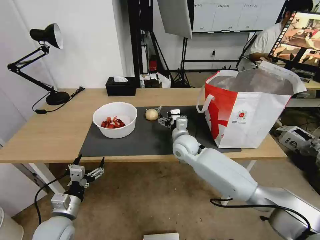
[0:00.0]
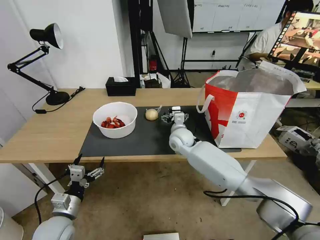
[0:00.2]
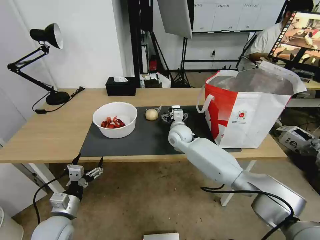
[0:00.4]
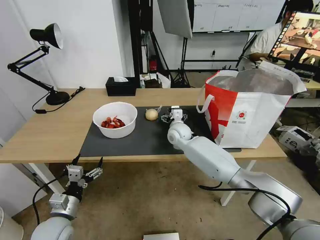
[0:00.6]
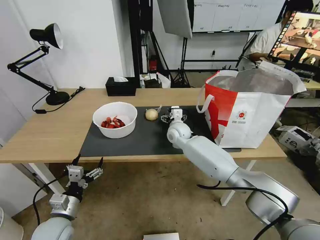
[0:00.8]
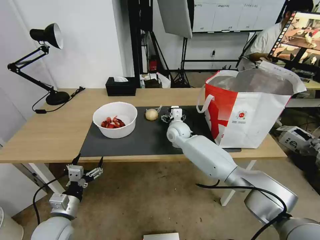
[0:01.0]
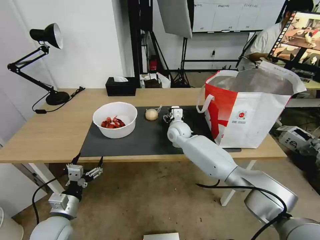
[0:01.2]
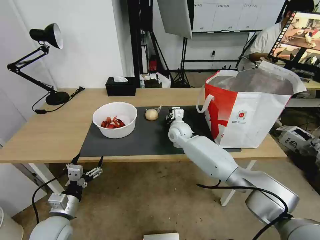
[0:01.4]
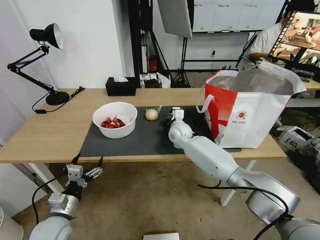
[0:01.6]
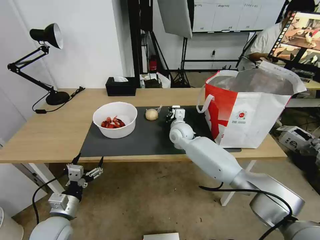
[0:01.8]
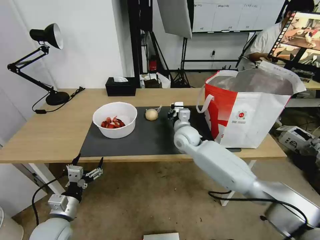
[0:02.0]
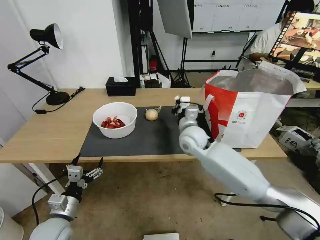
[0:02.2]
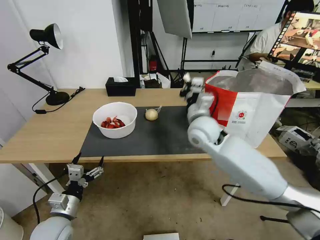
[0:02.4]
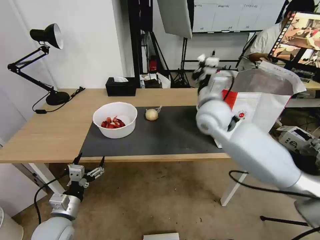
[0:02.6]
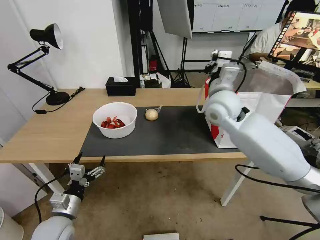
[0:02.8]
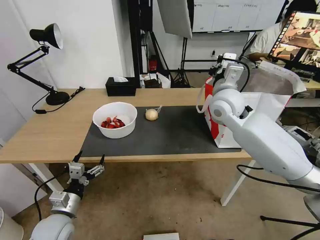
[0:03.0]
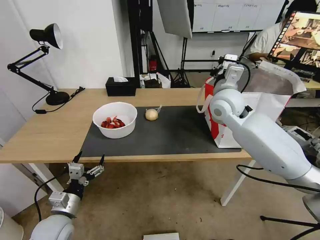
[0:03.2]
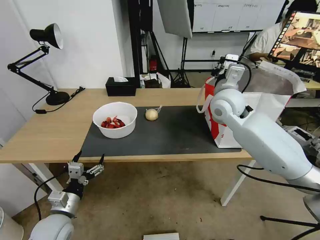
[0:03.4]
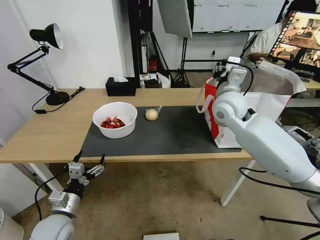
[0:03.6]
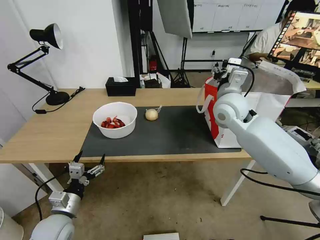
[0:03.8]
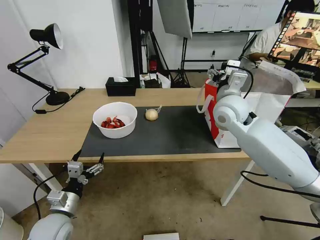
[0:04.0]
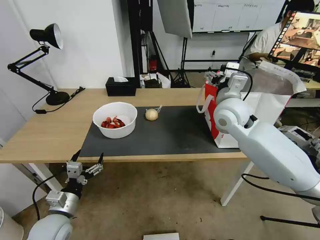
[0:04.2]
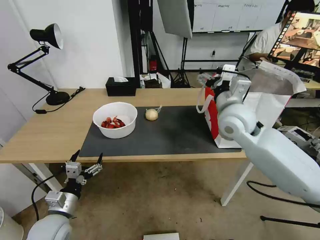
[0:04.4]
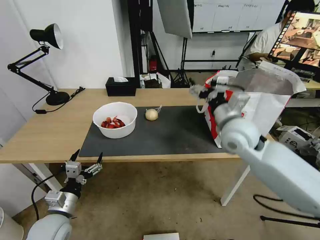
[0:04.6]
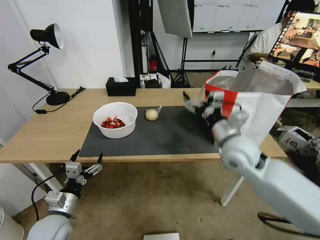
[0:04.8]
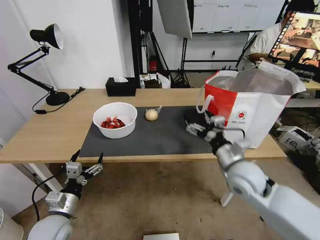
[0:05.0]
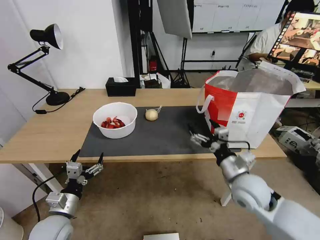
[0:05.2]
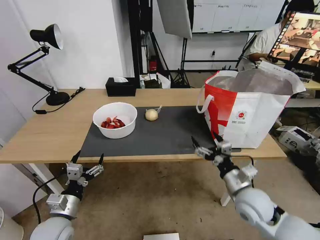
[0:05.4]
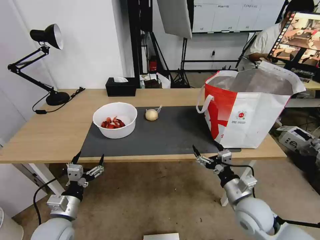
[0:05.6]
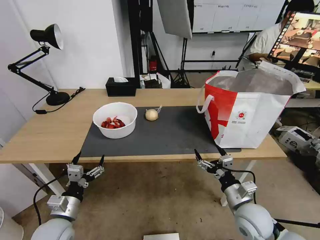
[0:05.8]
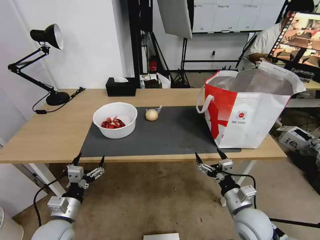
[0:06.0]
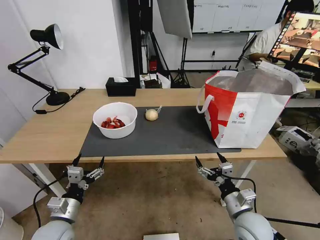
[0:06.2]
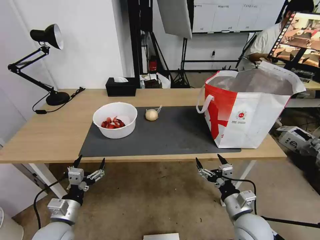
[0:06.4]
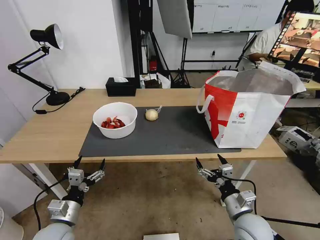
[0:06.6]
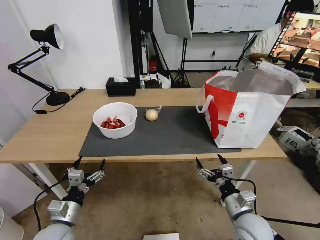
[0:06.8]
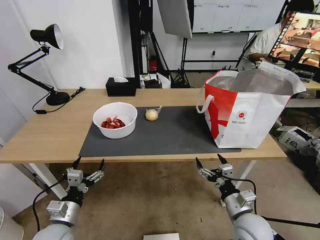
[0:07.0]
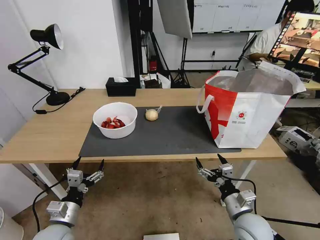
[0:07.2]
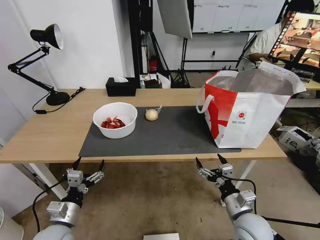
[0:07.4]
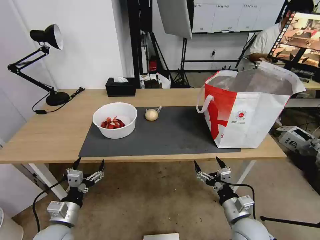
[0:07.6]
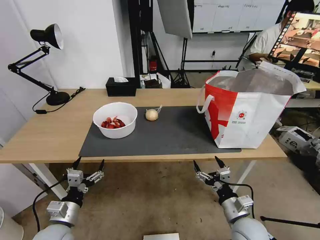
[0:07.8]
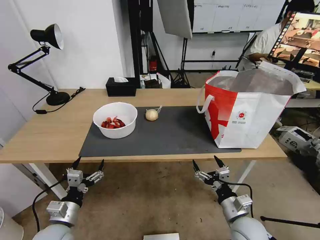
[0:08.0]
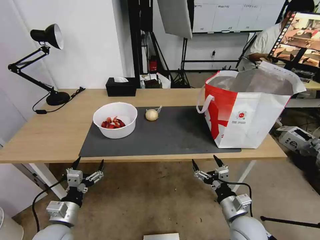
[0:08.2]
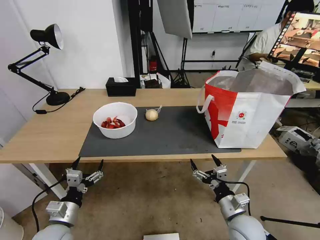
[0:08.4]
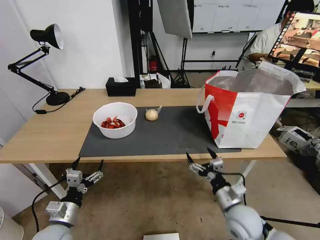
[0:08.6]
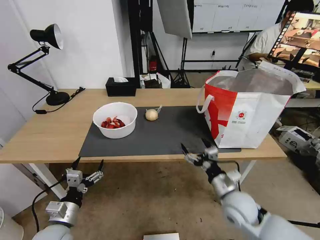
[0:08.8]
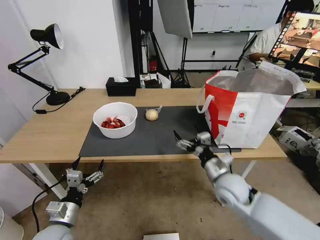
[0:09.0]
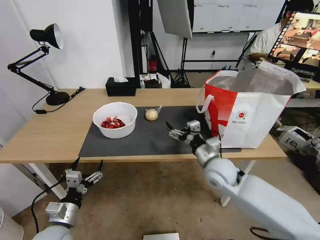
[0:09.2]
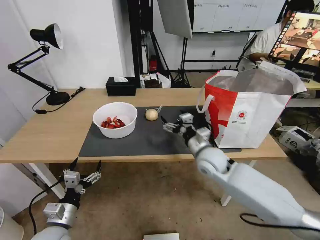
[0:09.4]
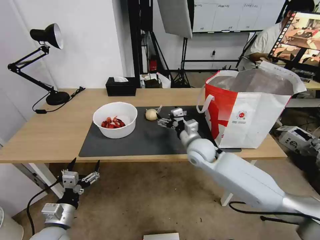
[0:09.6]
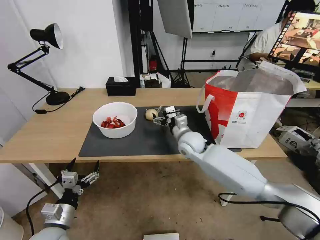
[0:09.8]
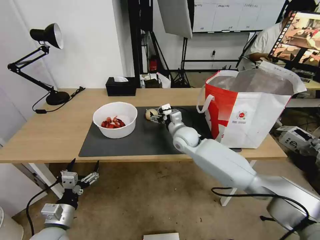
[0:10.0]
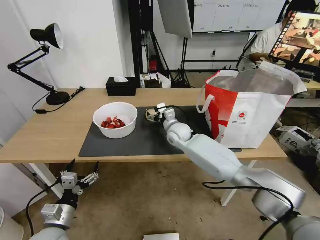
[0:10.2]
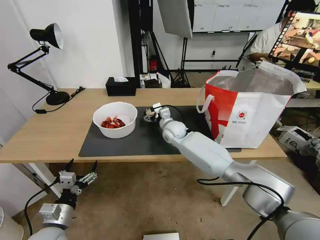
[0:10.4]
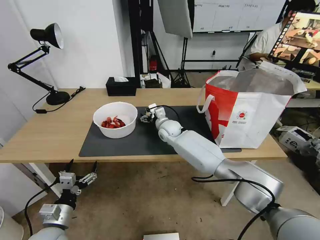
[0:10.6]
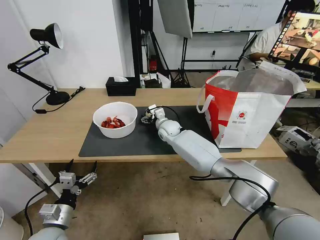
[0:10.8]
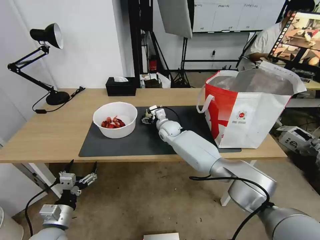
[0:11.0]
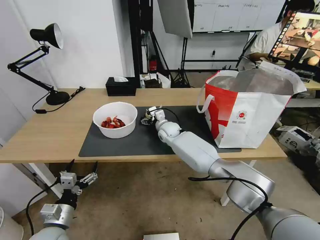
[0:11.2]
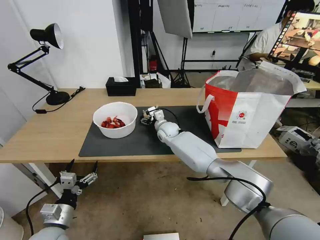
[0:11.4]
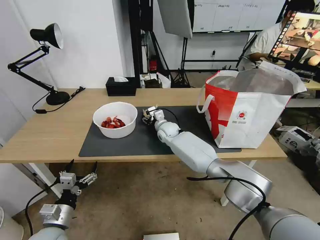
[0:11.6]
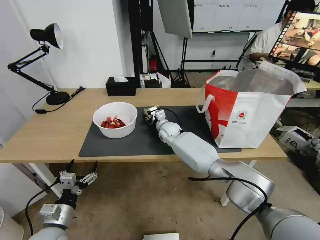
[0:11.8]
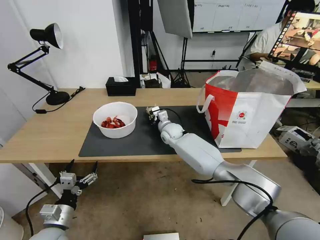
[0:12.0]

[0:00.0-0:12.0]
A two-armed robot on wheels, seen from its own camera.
Task of the whole recording: Pick up the trash from the table and place it into the takeout bag.
0:00.0 to 0:01.6: The right gripper shifts some 10 cm forward, and closes up.
0:01.6 to 0:03.0: The right gripper moves upward and to the right, about 25 cm.
0:03.0 to 0:04.4: The right gripper ends up roughly 5 cm from where it was, and opens its fingers.
0:04.4 to 0:06.0: The right gripper shifts roughly 30 cm downward and backward.
0:06.0 to 0:07.6: The grippers make only small movements.
0:07.6 to 0:09.0: The right gripper shifts some 15 cm forward and upward.
0:09.0 to 0:10.4: The right gripper shifts about 30 cm forward and to the left.
0:10.4 to 0:12.0: The right gripper closes.

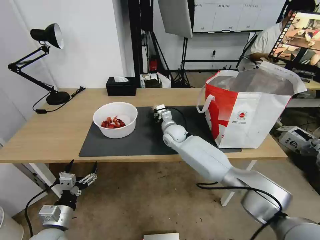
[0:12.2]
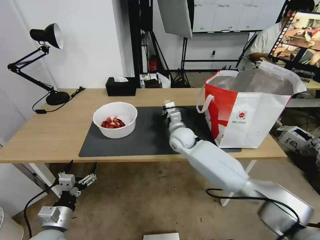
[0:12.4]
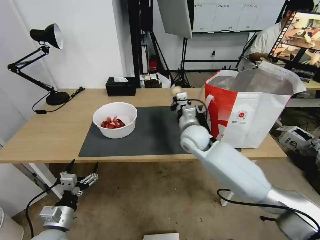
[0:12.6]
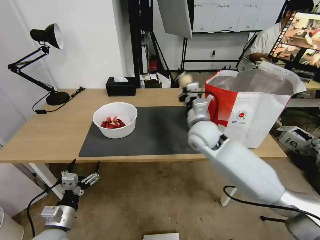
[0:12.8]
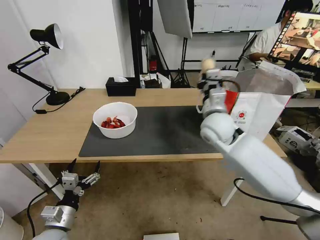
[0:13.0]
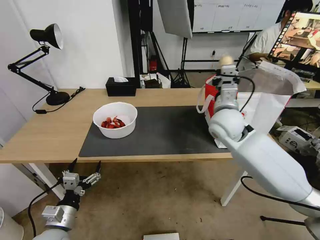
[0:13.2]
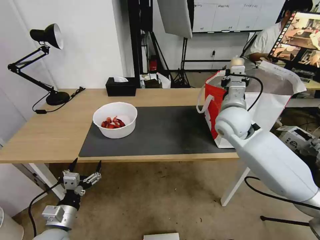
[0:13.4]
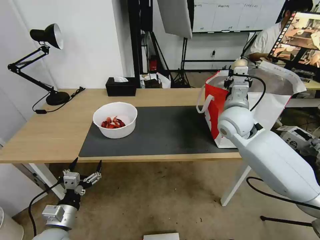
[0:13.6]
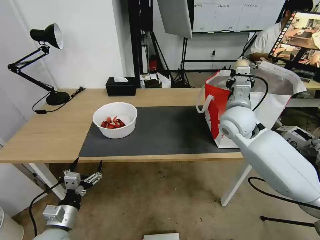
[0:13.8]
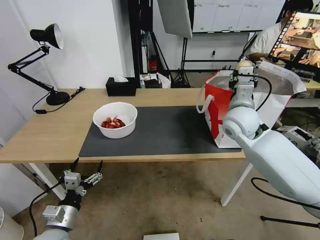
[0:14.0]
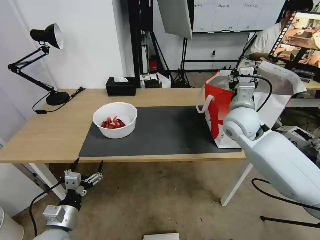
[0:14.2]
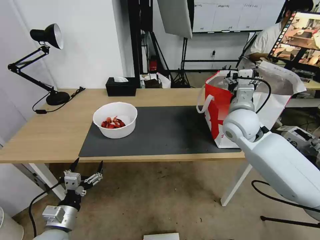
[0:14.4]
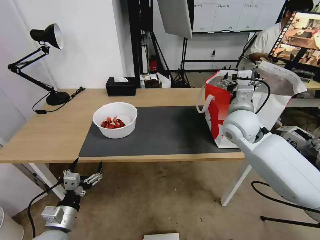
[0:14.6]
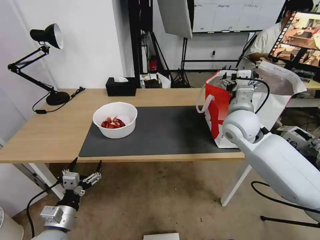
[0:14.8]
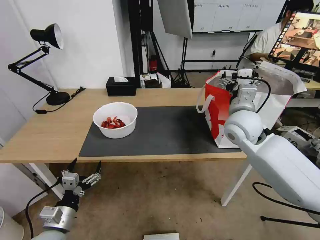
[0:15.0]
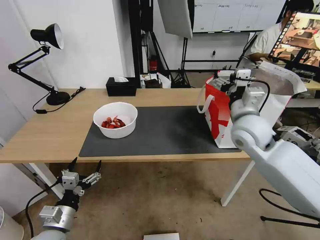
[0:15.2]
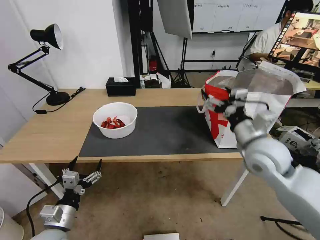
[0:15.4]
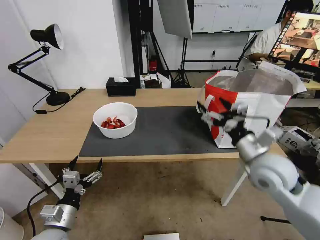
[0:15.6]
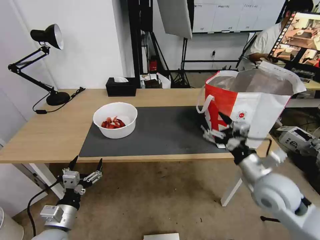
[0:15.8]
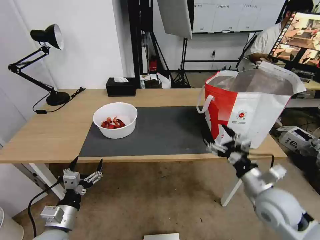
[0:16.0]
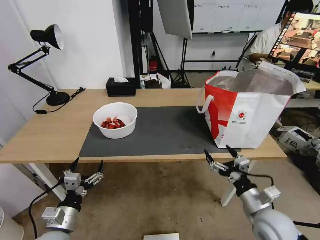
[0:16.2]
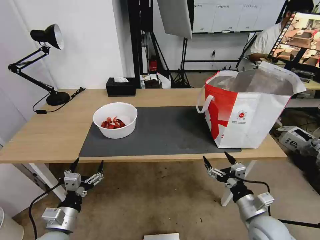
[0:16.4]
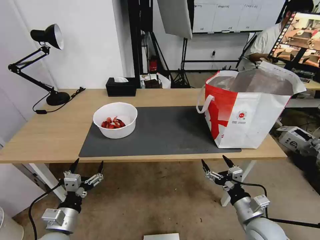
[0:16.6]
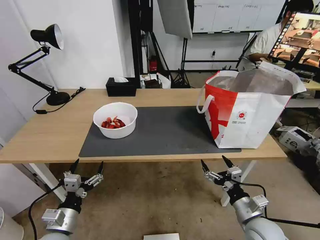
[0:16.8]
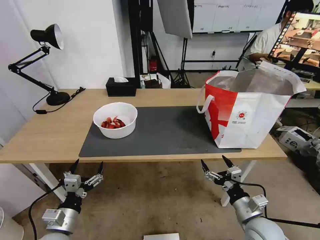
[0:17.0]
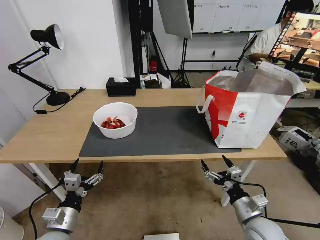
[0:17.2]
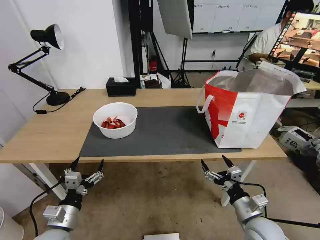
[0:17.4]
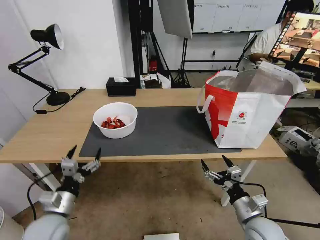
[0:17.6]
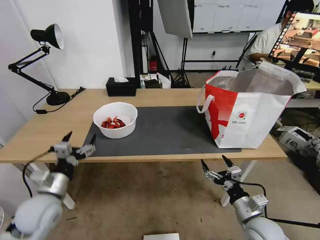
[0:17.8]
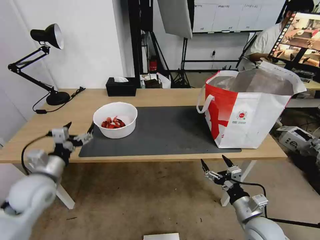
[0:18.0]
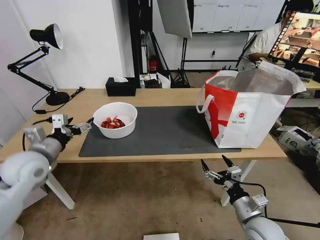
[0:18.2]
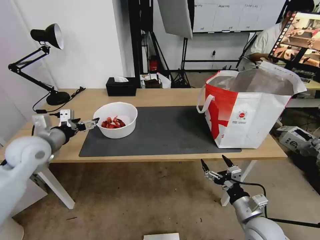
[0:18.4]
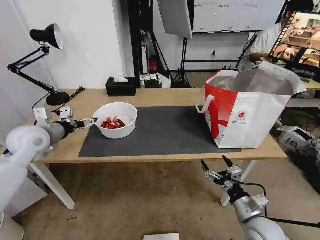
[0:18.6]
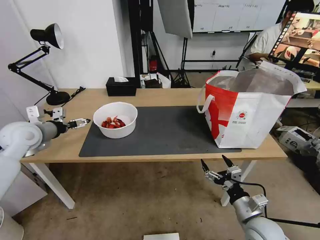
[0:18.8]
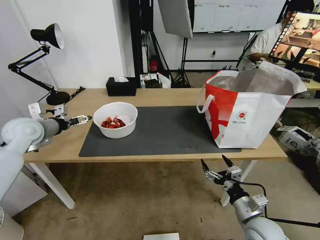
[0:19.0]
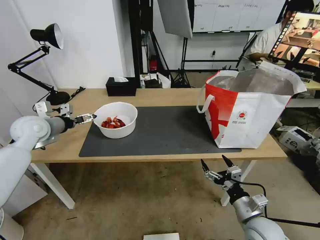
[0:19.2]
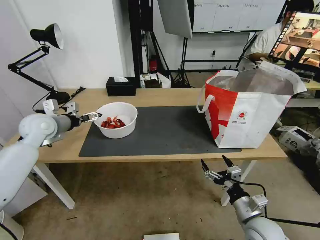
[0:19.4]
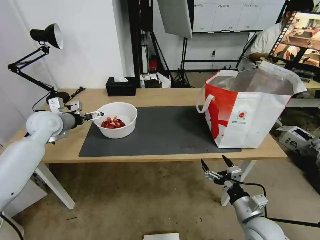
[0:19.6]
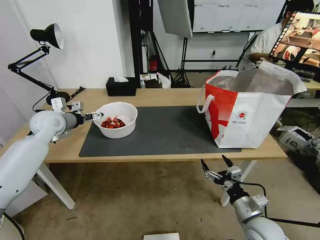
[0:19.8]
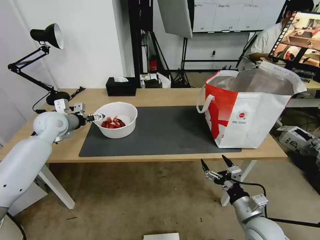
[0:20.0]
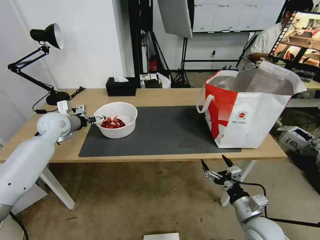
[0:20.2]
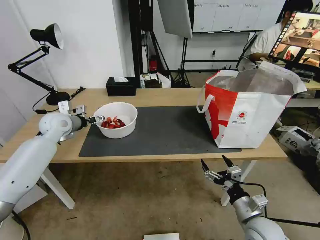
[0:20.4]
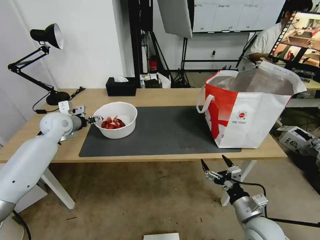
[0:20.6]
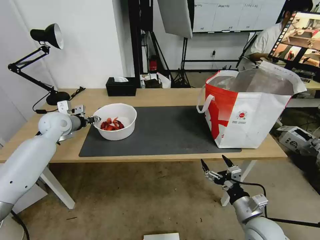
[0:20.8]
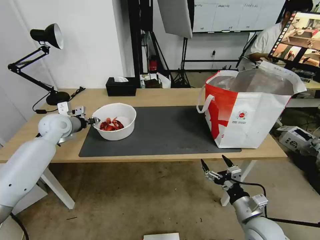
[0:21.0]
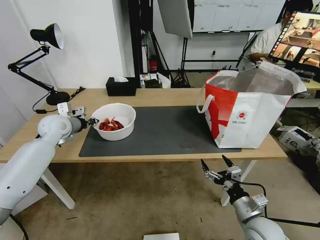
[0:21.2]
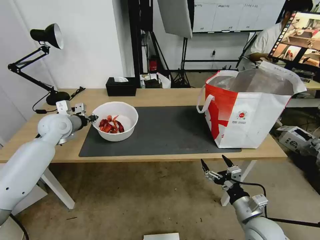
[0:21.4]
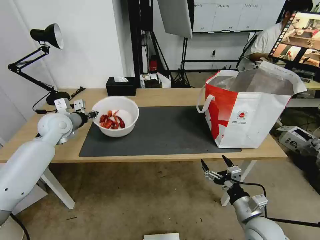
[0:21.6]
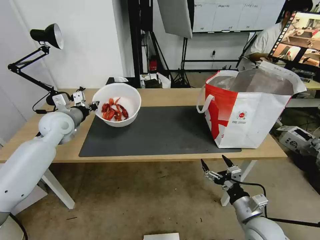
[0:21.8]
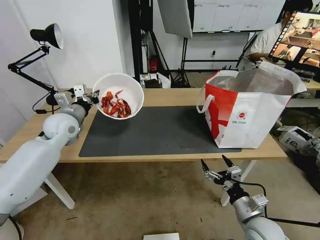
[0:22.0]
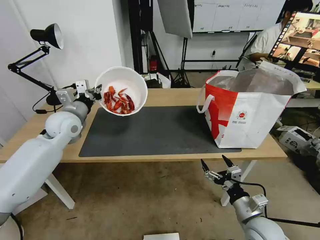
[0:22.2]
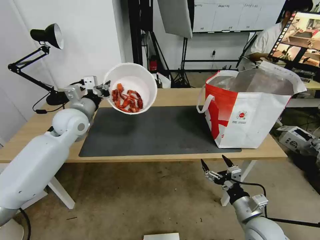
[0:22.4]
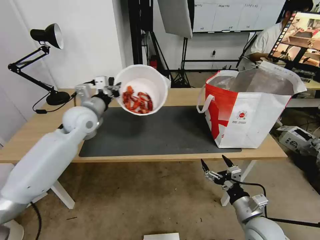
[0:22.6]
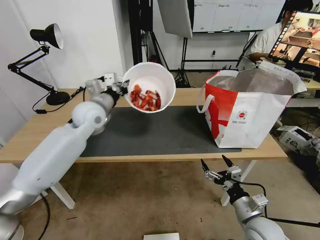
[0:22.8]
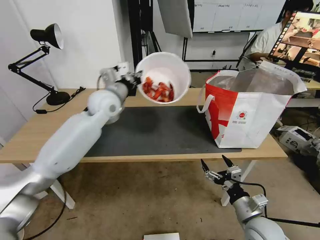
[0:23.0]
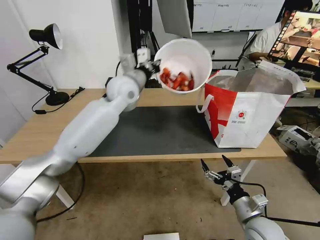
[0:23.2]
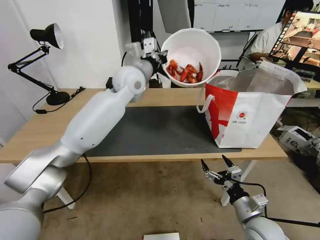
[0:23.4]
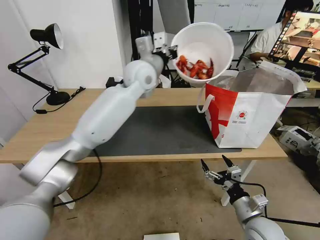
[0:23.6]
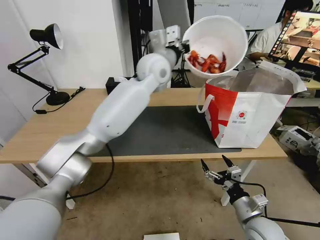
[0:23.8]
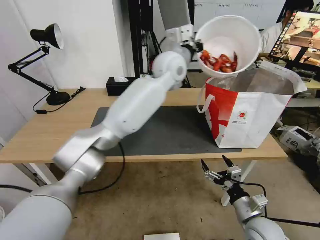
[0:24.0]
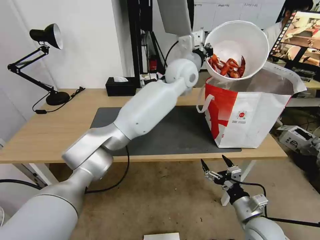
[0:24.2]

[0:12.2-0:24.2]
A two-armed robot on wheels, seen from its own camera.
Task of the whole recording: Pick up the trash from the table and place it into the takeout bag.
0:12.2 to 0:13.8: The right gripper goes approximately 25 cm upward, to the right and backward.
0:13.8 to 0:15.2: The right gripper travels backward by some 5 cm, and opens its fingers.
0:15.2 to 0:16.6: The right gripper is displaced downward and backward by some 30 cm.
0:16.6 to 0:18.2: The left gripper goes approximately 25 cm forward, upward and to the left.
0:18.2 to 0:19.8: The left gripper goes some 15 cm forward.
0:19.8 to 0:21.2: The left gripper closes up.
0:21.2 to 0:22.6: The left gripper shifts about 10 cm to the right.
0:22.6 to 0:24.2: The left gripper heads to the right, covering about 30 cm.
